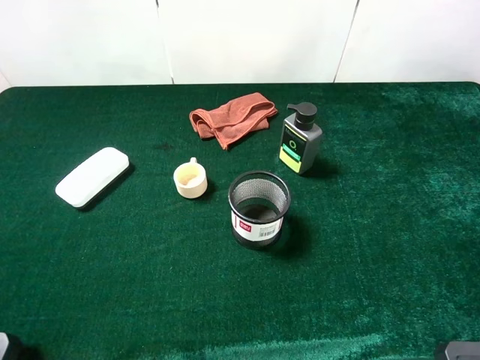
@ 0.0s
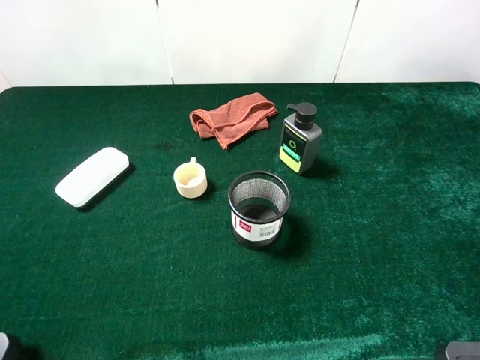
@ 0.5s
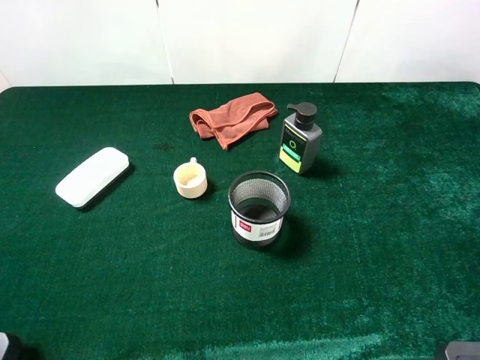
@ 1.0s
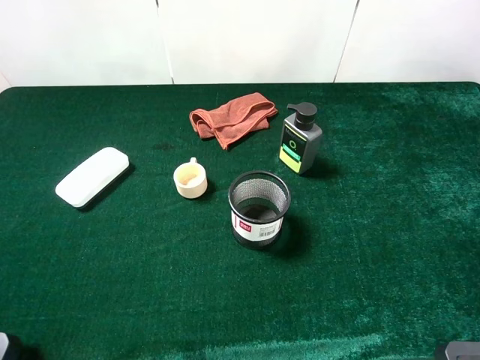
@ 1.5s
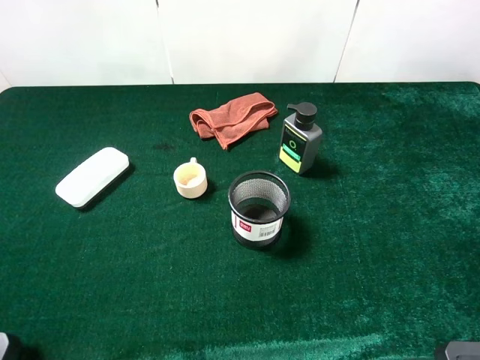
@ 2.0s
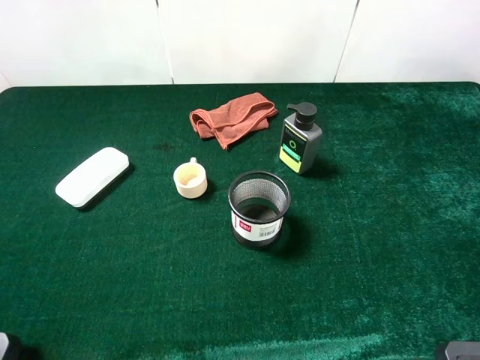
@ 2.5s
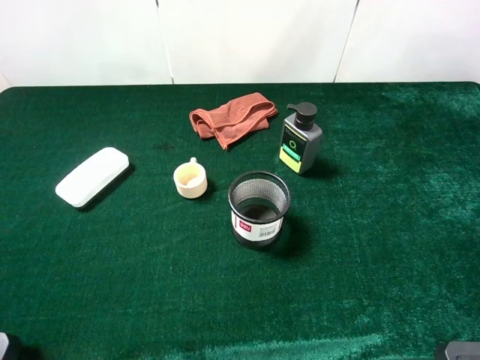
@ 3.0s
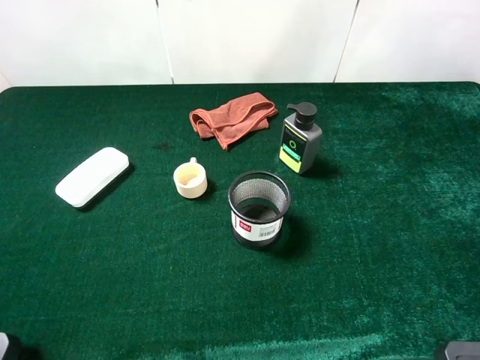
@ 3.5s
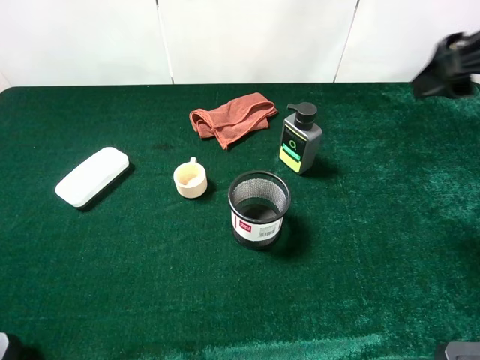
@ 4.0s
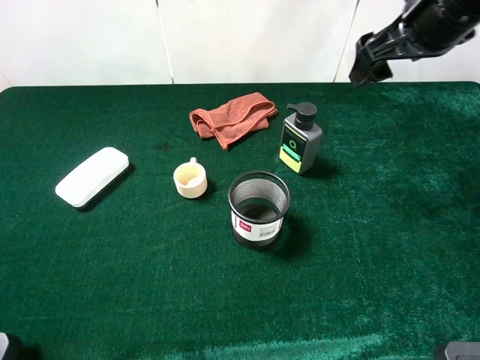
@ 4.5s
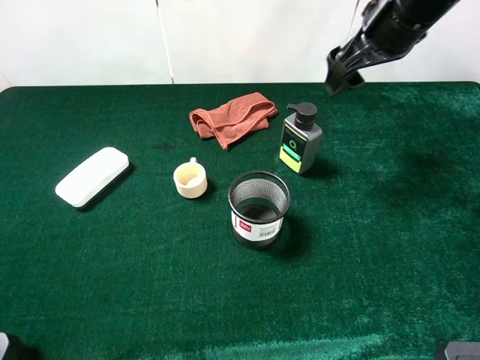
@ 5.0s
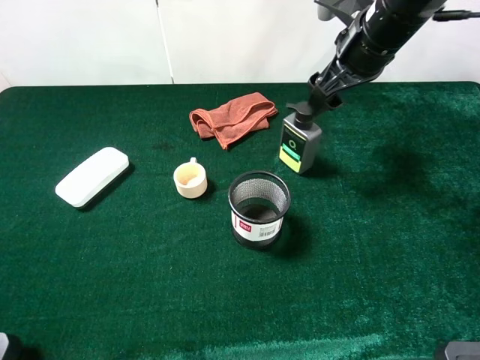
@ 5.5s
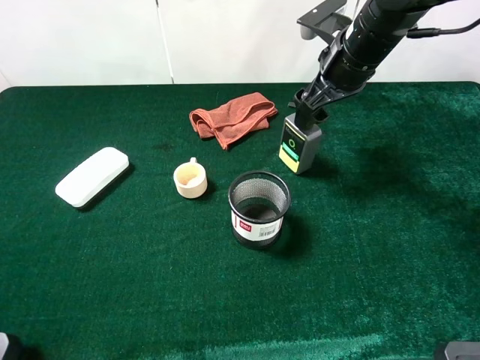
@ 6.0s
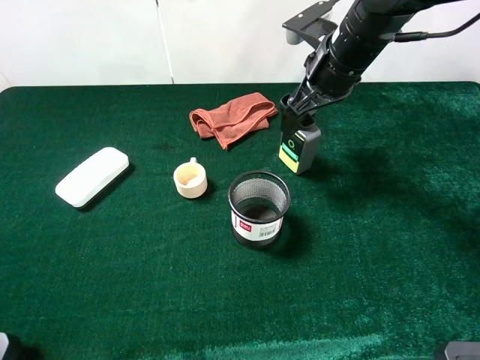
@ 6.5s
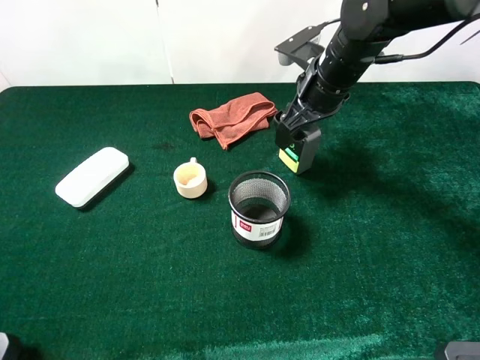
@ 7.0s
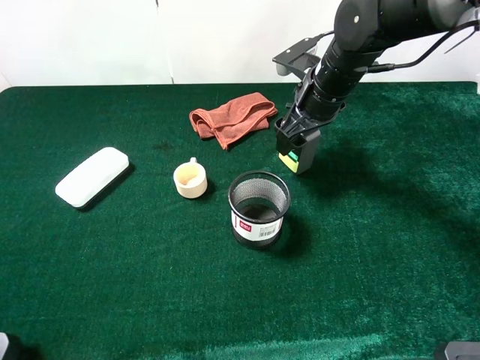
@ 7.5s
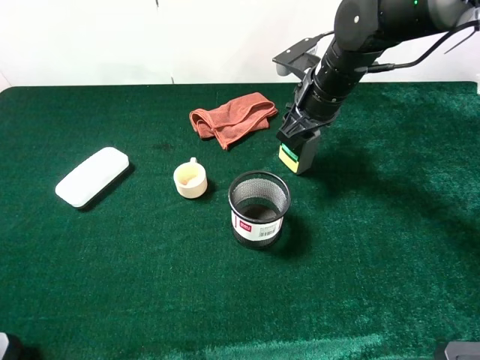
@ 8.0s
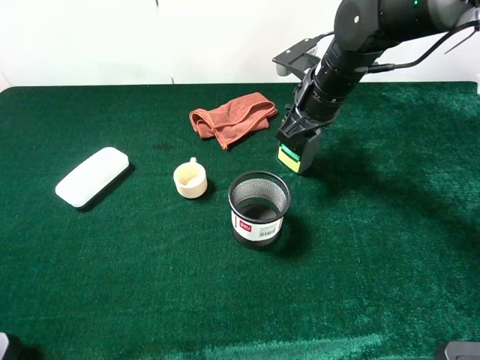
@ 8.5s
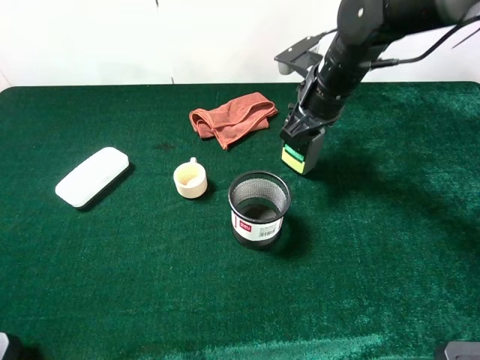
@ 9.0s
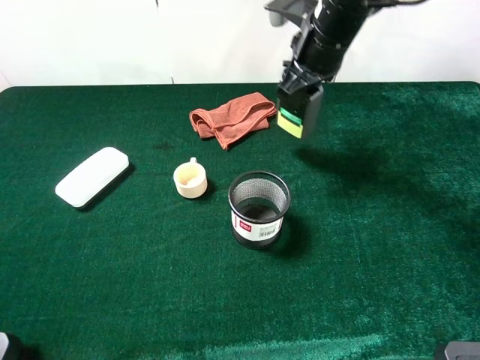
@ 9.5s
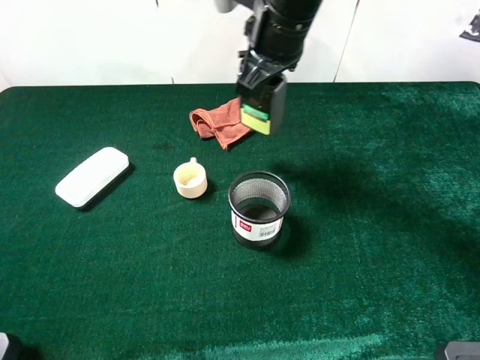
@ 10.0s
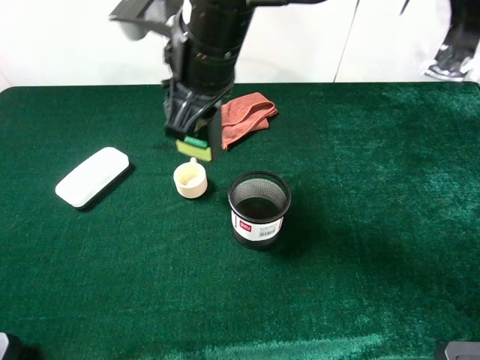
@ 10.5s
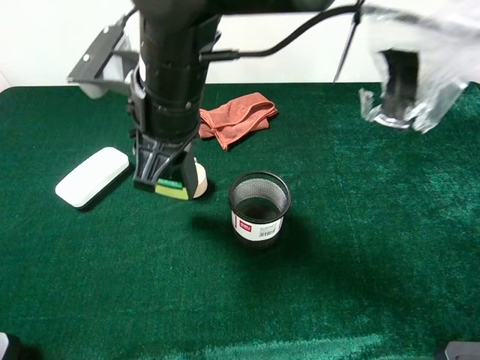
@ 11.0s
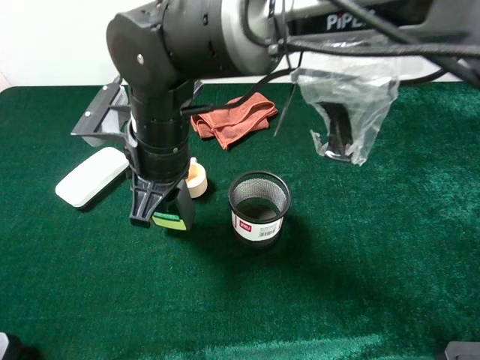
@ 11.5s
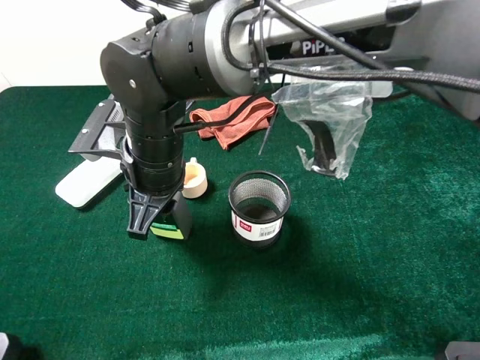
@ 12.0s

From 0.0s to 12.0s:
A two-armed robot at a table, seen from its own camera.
Task of the whole recording: the gripper move the object.
Step, from 0.0s to 8.5s: Grasp the hard facial cleanser with the right gripper.
From 0.0s to 2.0s: The two grippers keep their place.
From 2.0s to 4.0s: The right gripper shifts roughly 20 cm forward.
From 4.0s to 6.0s: The right gripper is displaced forward, downward and to the left by some 20 cm.
From 6.0s to 8.0s: The right gripper is displaced downward by approximately 5 cm, and closes its fingers.
From 8.0s to 10.0s: The right gripper goes about 15 cm upward and to the left.
From 10.0s to 12.0s: The right gripper heads to the left, backward and downward, covering approximately 20 cm.

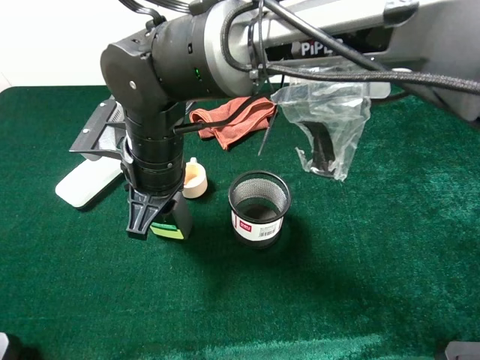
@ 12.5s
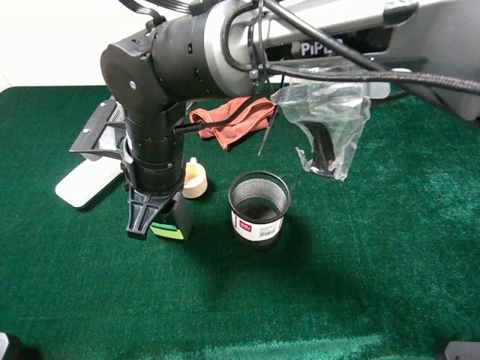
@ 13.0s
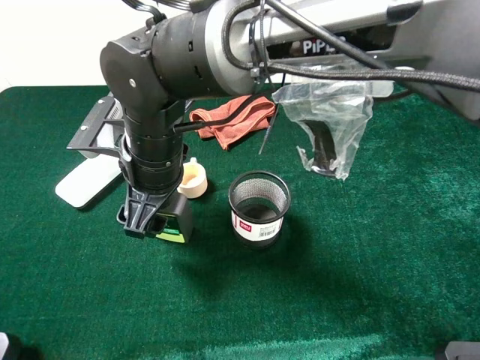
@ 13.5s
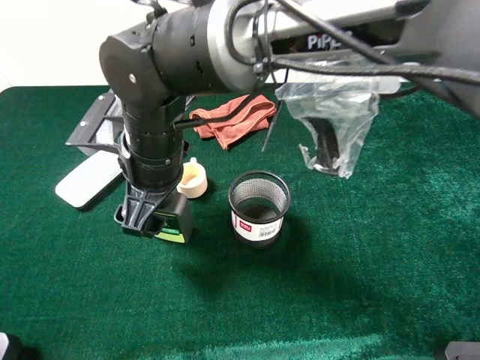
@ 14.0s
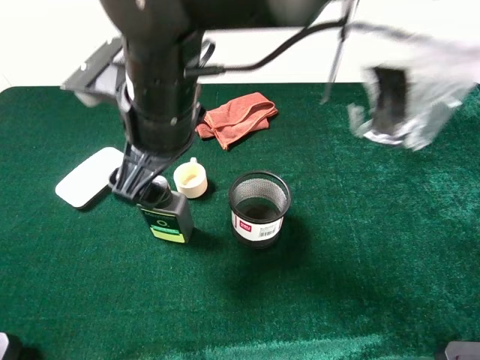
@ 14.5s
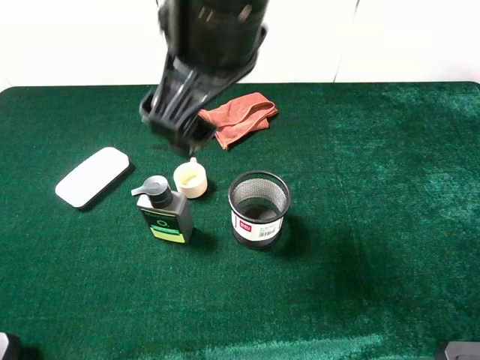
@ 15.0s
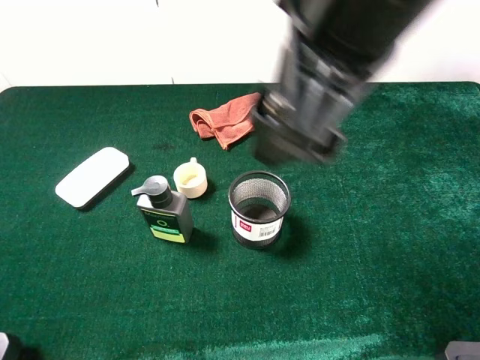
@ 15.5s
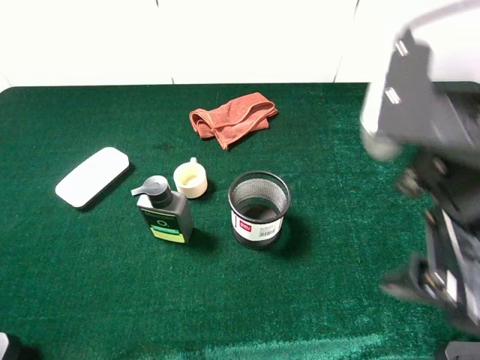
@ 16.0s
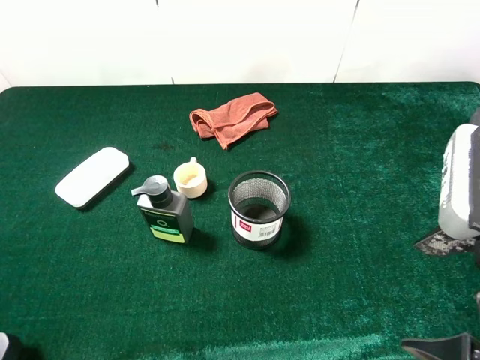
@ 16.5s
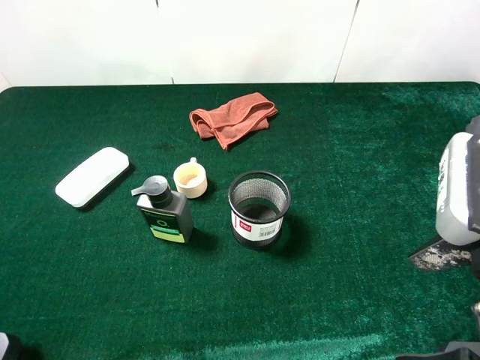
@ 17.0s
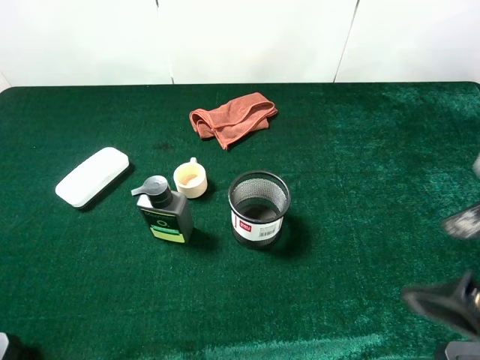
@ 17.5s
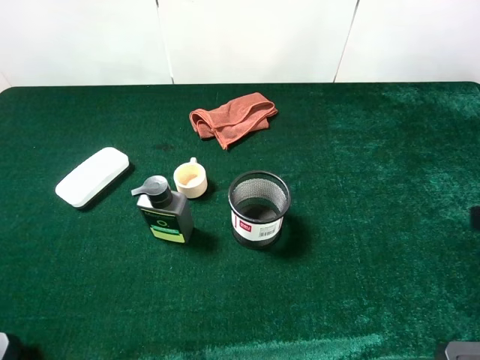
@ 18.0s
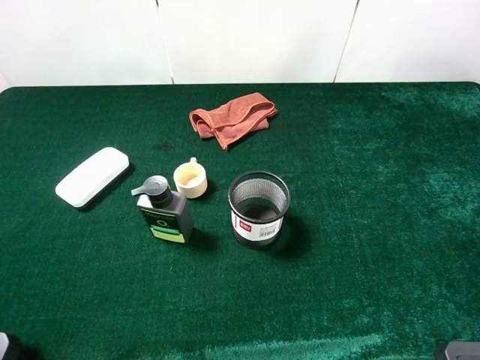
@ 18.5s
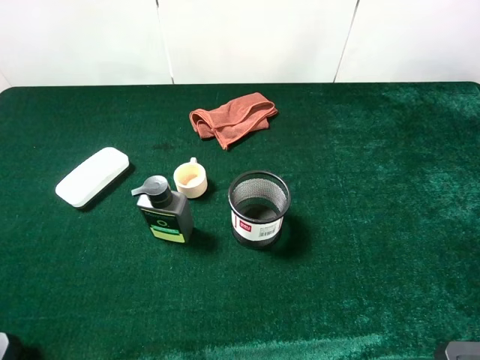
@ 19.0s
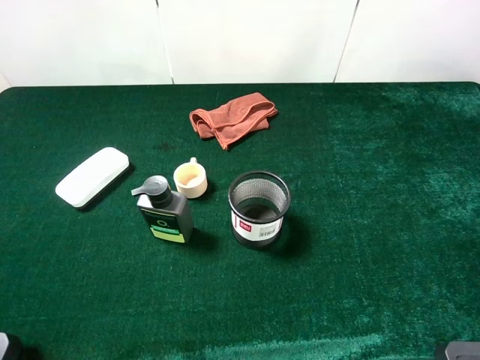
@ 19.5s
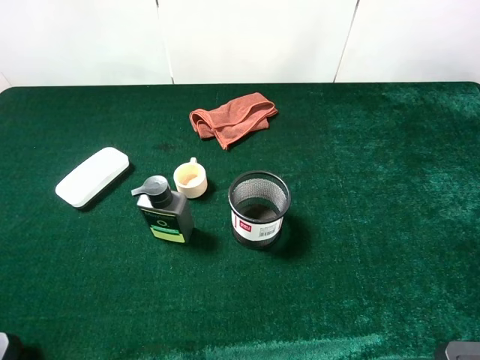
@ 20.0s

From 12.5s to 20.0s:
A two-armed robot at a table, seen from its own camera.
Task of the whole recording: the gripper move the object.
From 12.5s to 14.5s: The right gripper goes about 5 cm upward, and opens its fingers.
From 14.5s to 16.5s: The right gripper goes roughly 30 cm to the right and backward.
From 16.5s to 18.0s: The right gripper travels to the right by about 10 cm.
